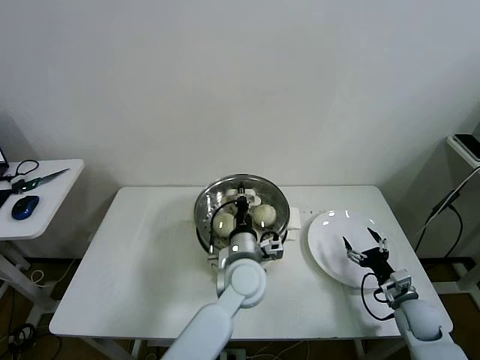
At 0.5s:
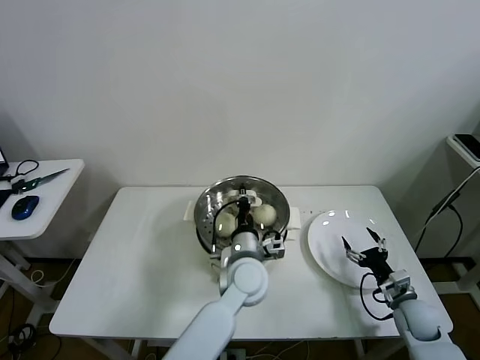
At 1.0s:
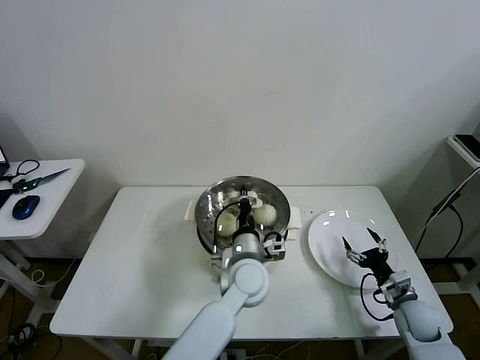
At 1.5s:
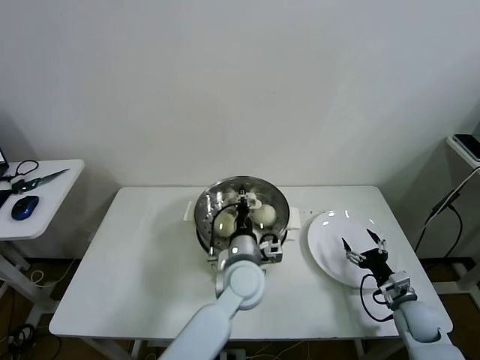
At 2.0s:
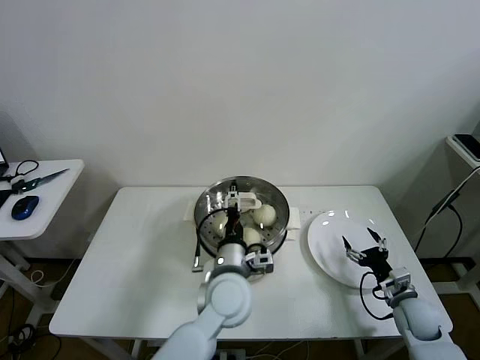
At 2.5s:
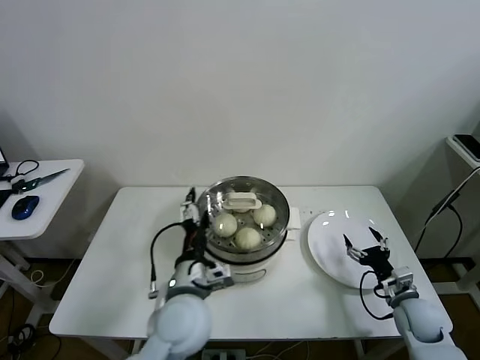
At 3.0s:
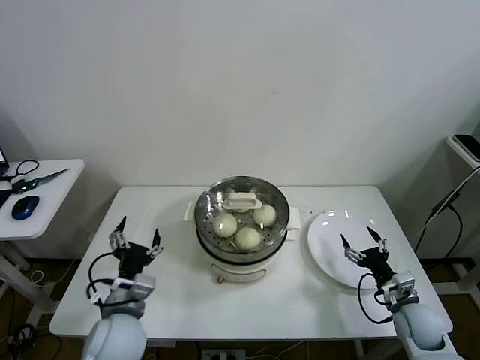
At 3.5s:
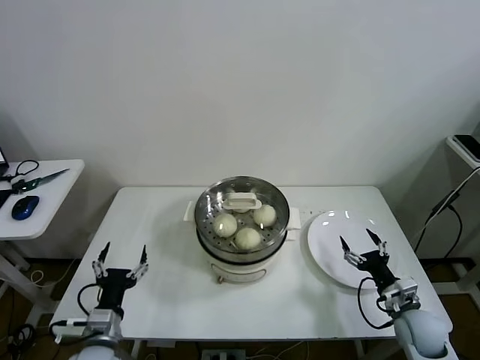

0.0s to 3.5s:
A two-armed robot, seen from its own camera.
Task of the whole recording: take steamed baozi put them in steamer then cover it.
0.0s to 2.0s: The left gripper opens.
2.0s to 3.5s: The left gripper goes approximately 30 cm to the left and backward.

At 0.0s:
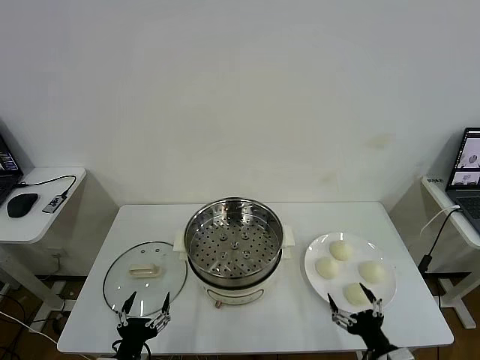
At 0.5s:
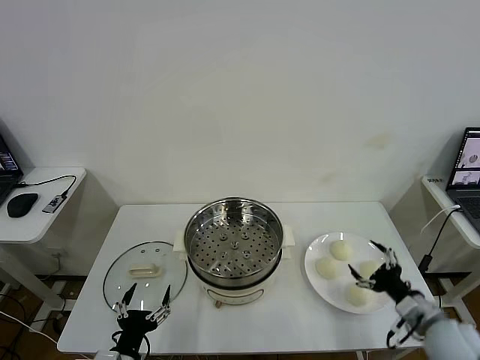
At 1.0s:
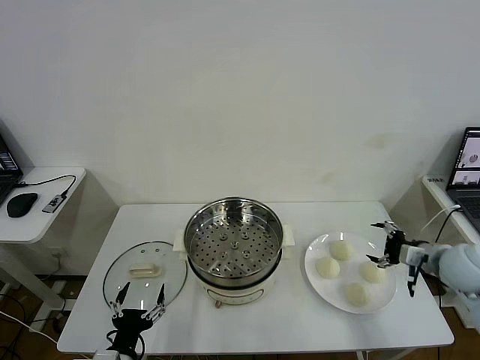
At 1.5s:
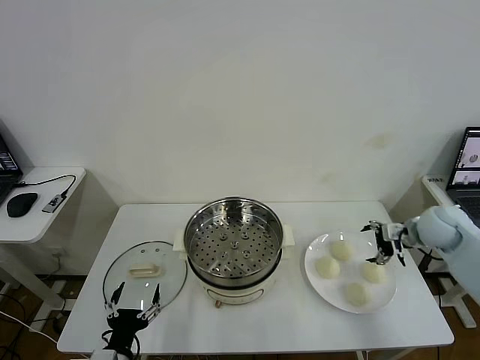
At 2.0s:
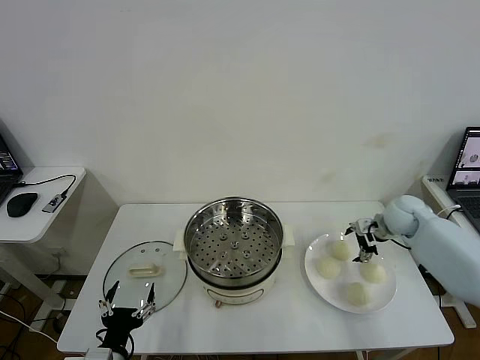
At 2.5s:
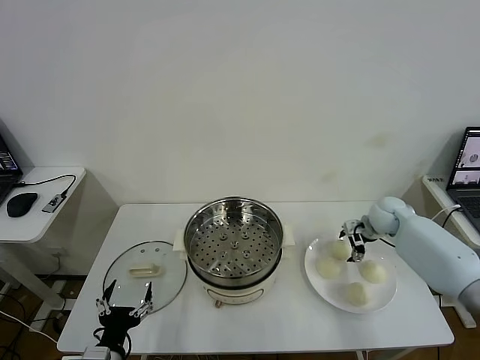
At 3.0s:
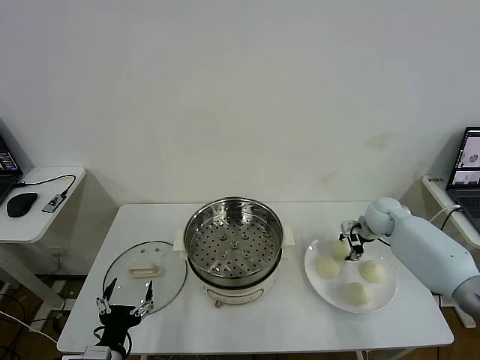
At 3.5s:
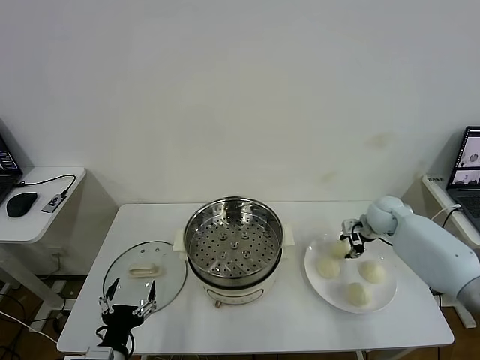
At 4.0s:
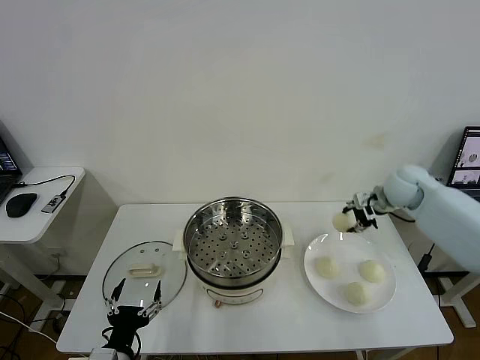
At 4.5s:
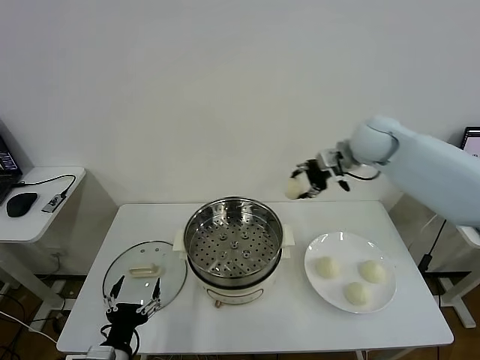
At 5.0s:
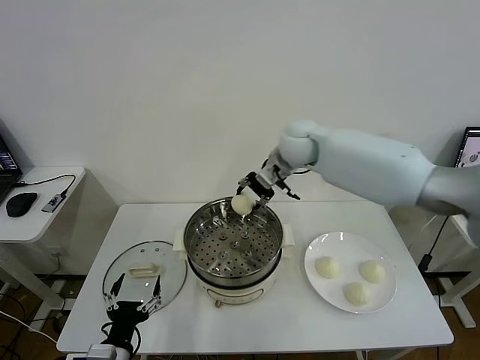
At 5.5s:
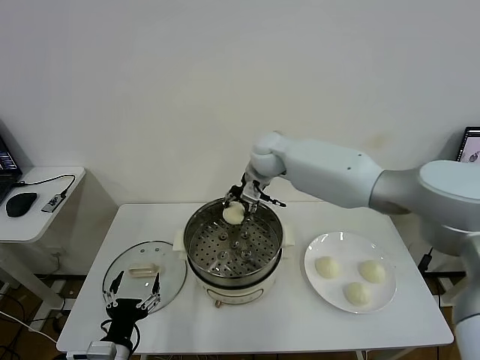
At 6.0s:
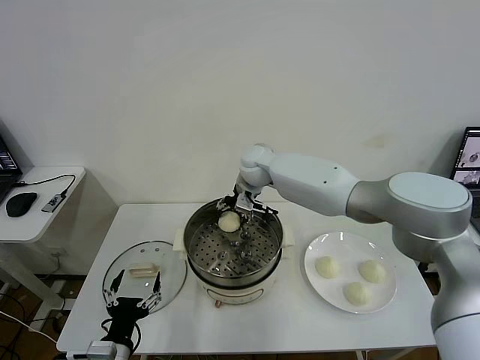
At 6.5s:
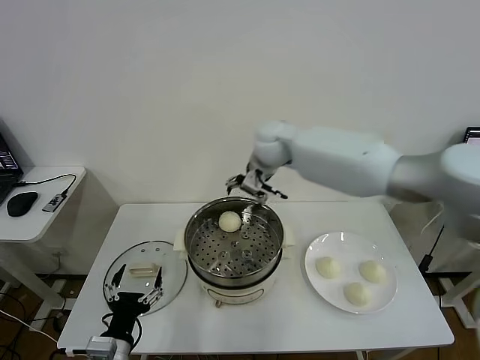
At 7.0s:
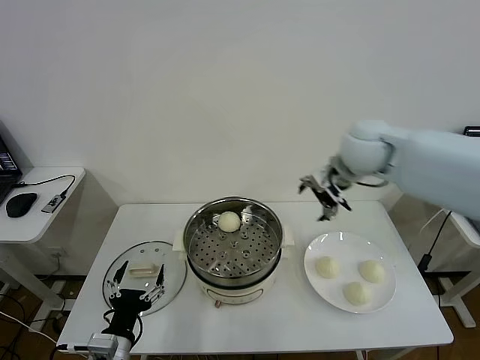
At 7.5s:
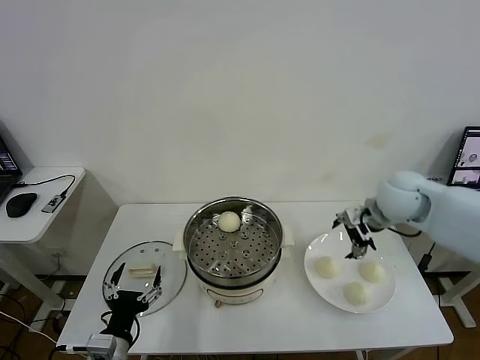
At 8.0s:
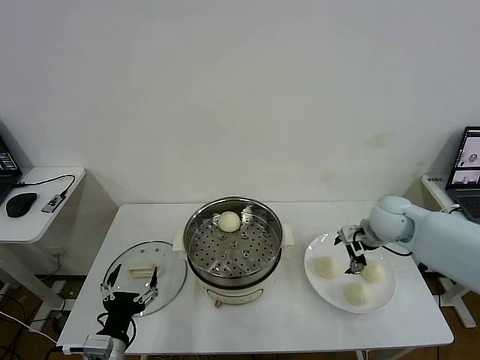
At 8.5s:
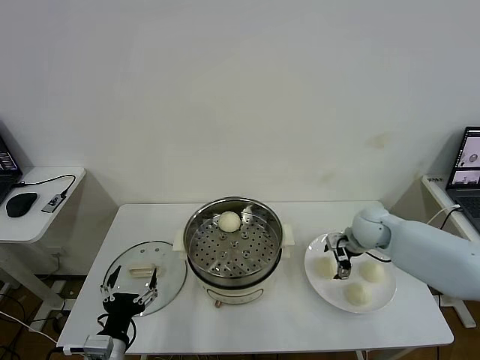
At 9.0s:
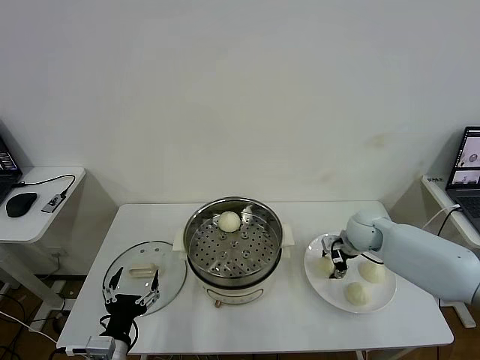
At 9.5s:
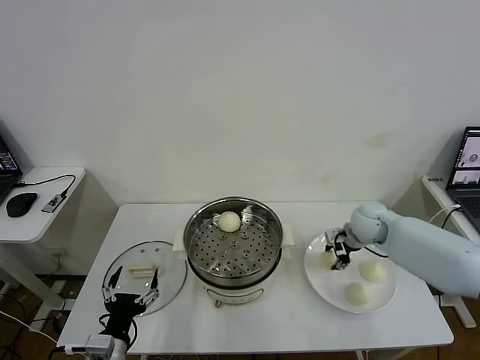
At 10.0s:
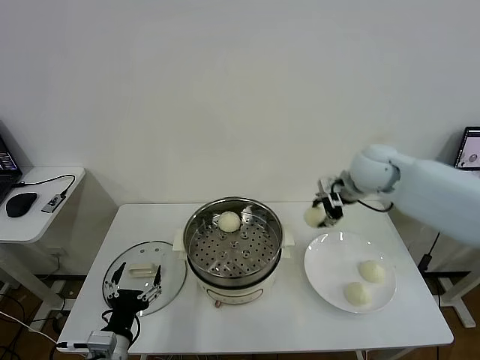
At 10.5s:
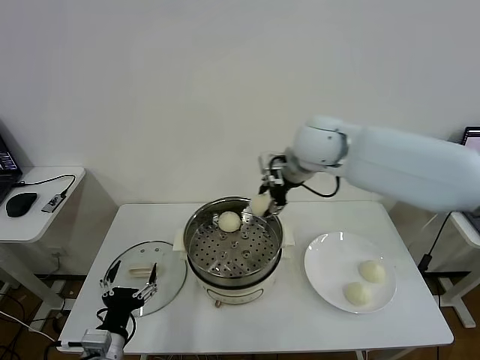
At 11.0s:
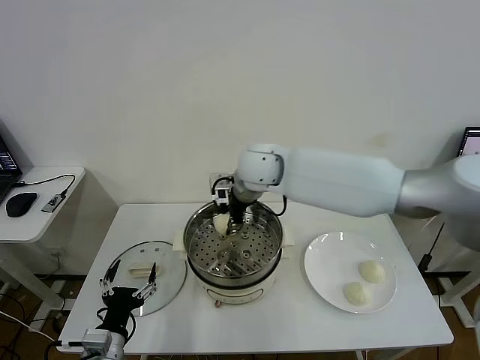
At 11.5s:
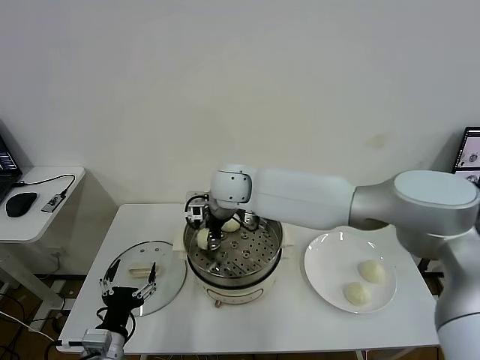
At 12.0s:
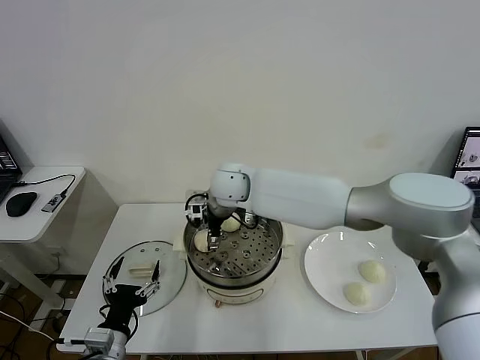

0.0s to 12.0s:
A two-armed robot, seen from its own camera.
Task of the whole recording: take steamed baozi put them in steamer then cover it.
Step, 0.0s to 3.5s: Grasp the baozi in the plate with right gripper.
Step, 4.0s to 6.0s: Place the baozi on the steamer with right gripper.
Step, 6.5s to 9.0s: Grasp the baozi in the plate with right gripper.
2.0s to 4.0s: The right gripper heads upward, covering some 15 cm, and closes up.
4.0s to 6.0s: The right gripper moves to the left, about 35 cm, and opens up.
6.0s to 8.0s: The right gripper heads to the right and backward, covering approximately 30 cm.
8.0s to 10.0s: The right gripper goes roughly 15 cm upward and to the left, and closes its fingers.
10.0s to 12.0s: The right gripper goes approximately 25 cm to the left, and opens its fingers.

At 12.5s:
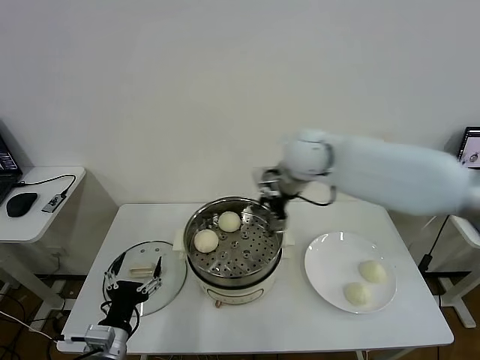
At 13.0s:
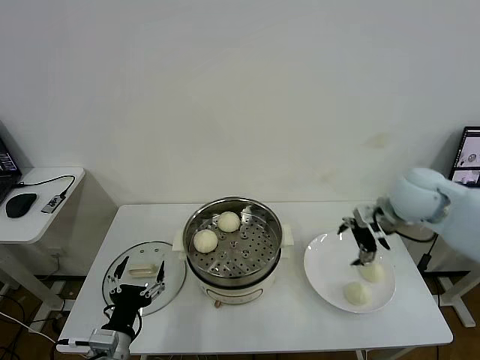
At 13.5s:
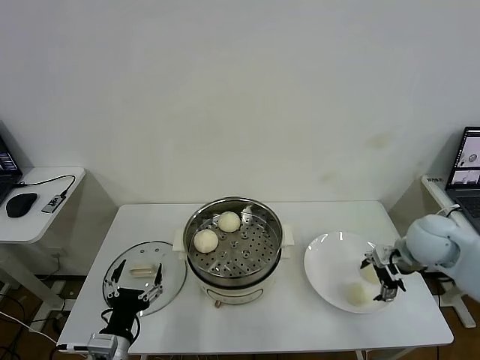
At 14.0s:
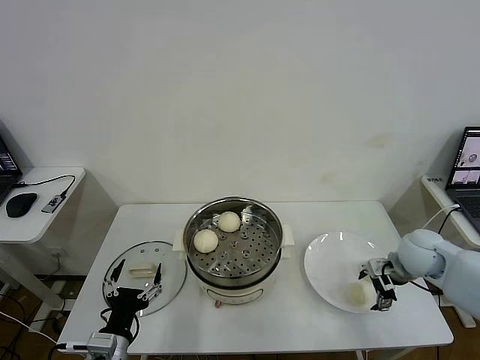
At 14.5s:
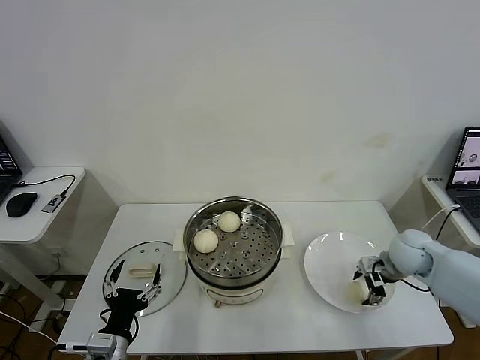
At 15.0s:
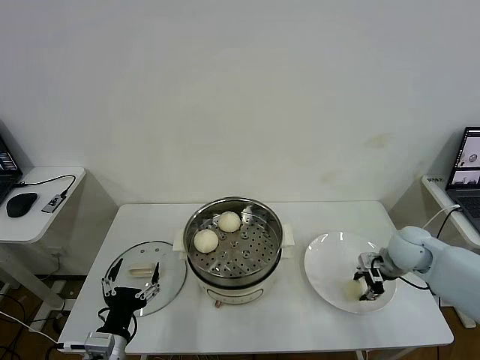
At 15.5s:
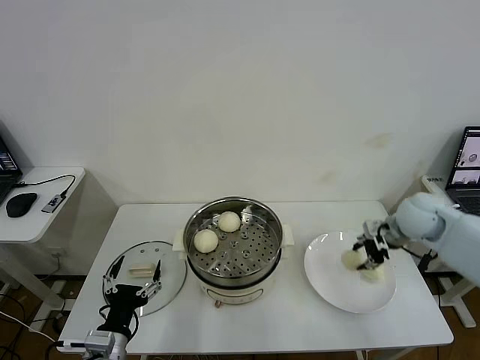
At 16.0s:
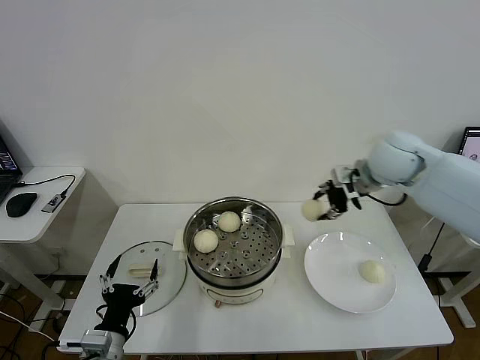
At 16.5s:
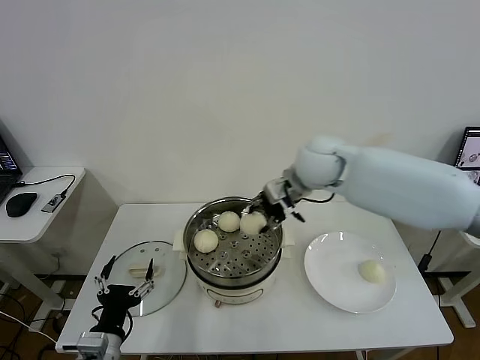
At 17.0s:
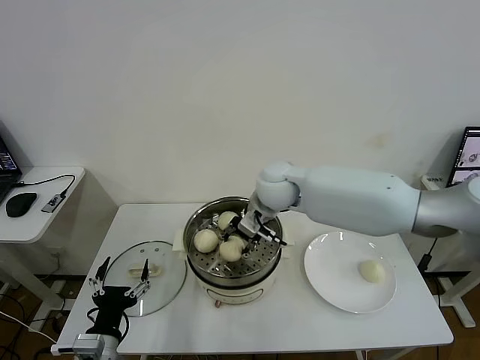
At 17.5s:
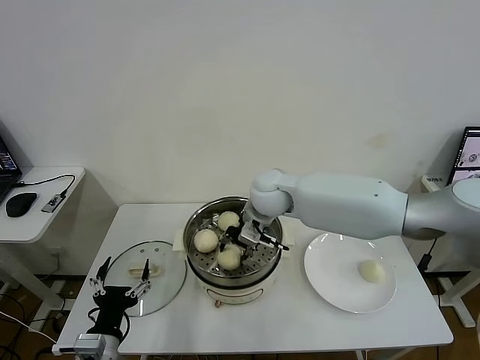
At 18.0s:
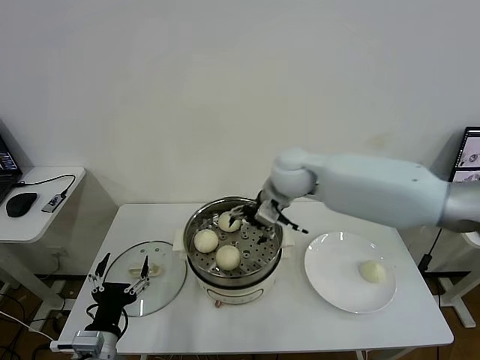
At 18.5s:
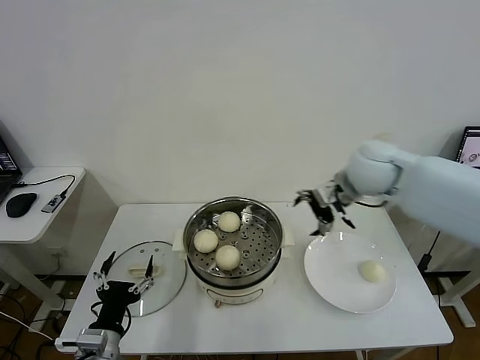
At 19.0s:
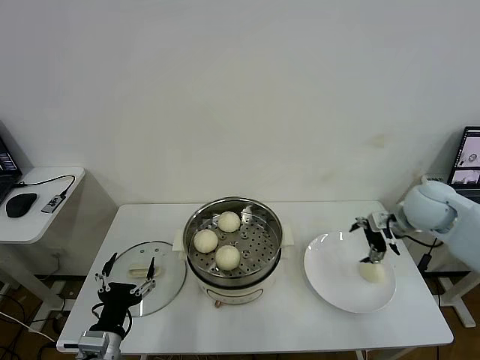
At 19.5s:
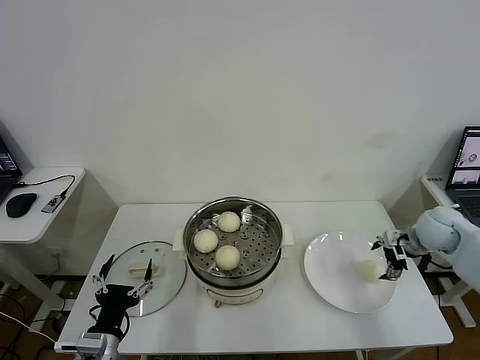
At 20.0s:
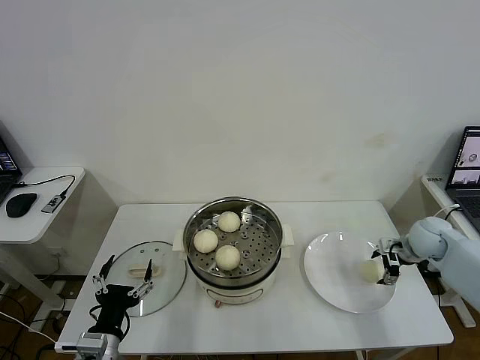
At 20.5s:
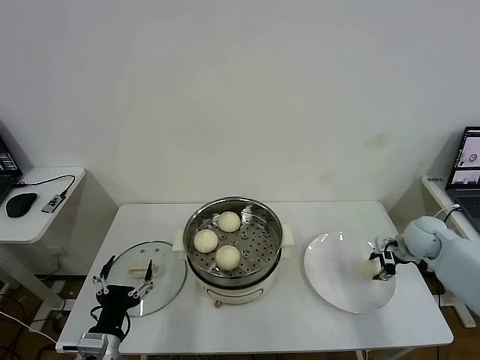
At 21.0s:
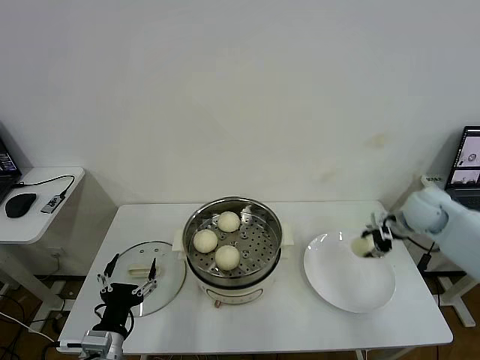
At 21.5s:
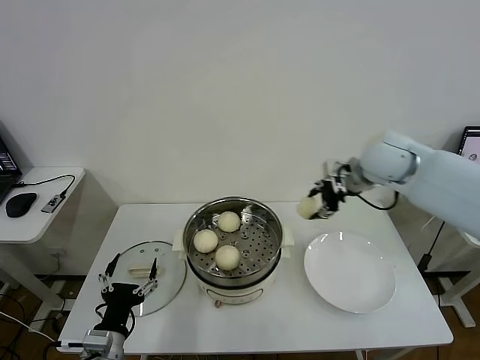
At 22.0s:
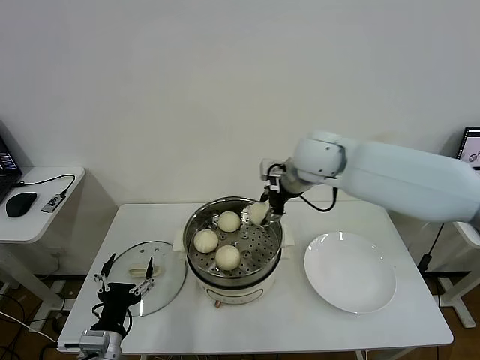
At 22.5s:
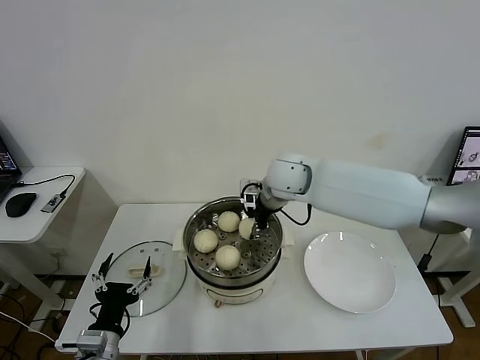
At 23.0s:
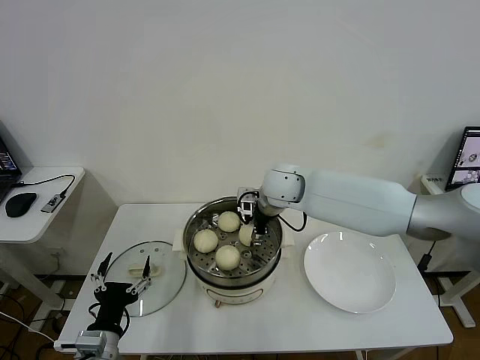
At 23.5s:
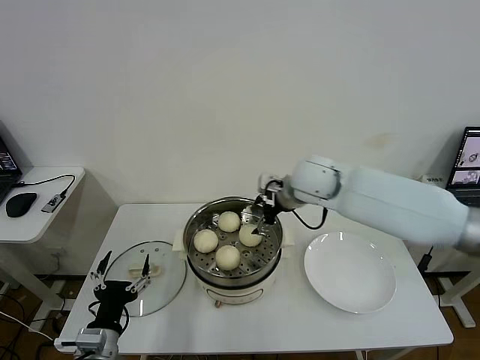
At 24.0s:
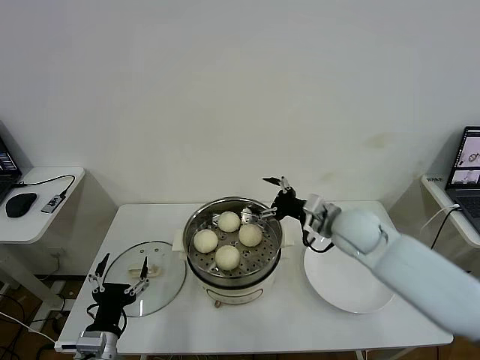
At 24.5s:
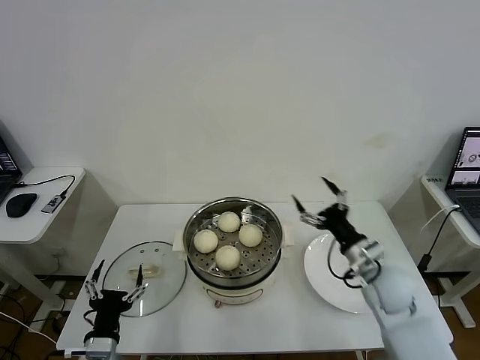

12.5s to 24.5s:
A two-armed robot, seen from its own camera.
Task of the whole recording: take steamed baozi put them in steamer then cover it.
Step, 12.5s to 15.0s: Grasp the baozi in the plate with right gripper.
Step, 15.5s to 17.5s: Place the baozi on the steamer with right gripper.
Step, 18.0s to 20.5s: Grasp the baozi in the plate with right gripper.
Step, 21.0s to 23.0s: Place the baozi on the steamer with right gripper.
12.5s to 14.5s: The right gripper goes roughly 30 cm to the right and downward, and closes.
14.5s to 16.5s: The right gripper moves to the left and upward, about 30 cm, and closes.
16.5s to 18.5s: The right gripper travels to the right by approximately 10 cm, and opens its fingers.
18.5s to 20.5s: The right gripper moves downward and to the right, about 25 cm, and closes.
20.5s to 22.5s: The right gripper shifts approximately 40 cm to the left and upward.
22.5s to 24.5s: The right gripper goes roughly 30 cm to the right, backward and downward, and opens.
